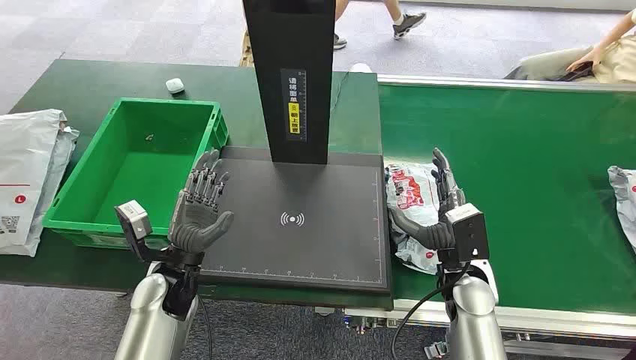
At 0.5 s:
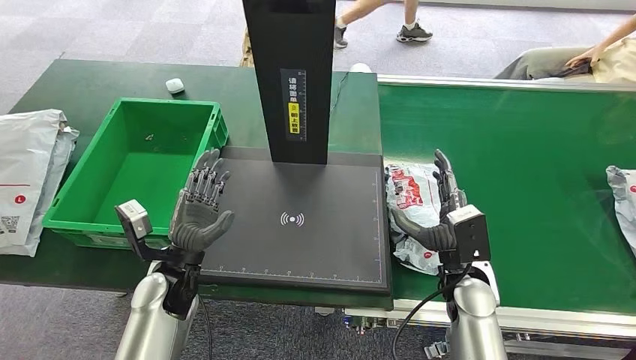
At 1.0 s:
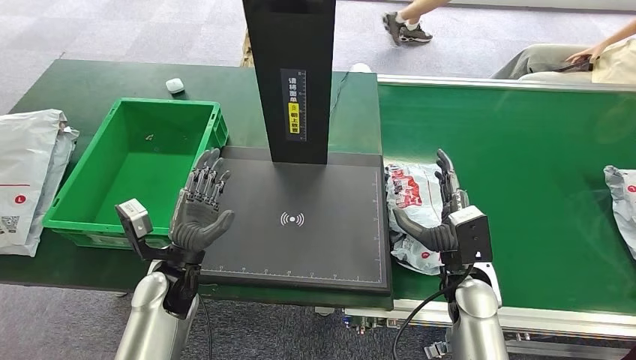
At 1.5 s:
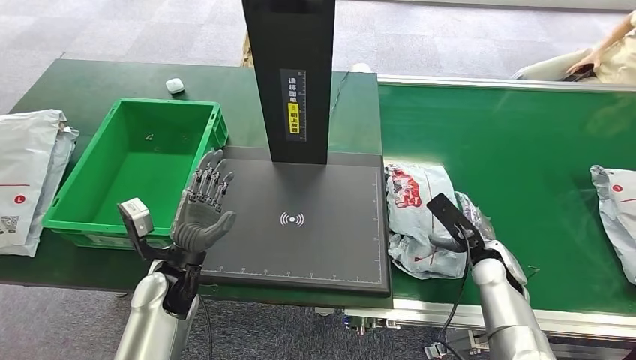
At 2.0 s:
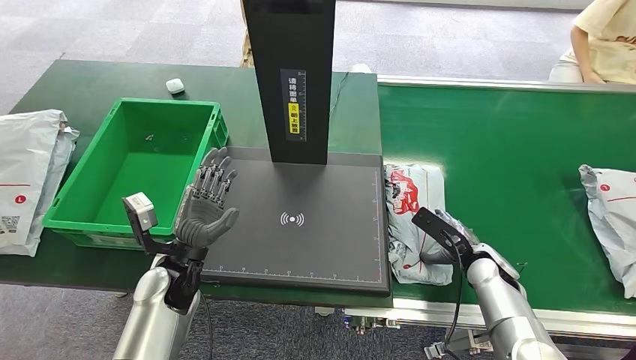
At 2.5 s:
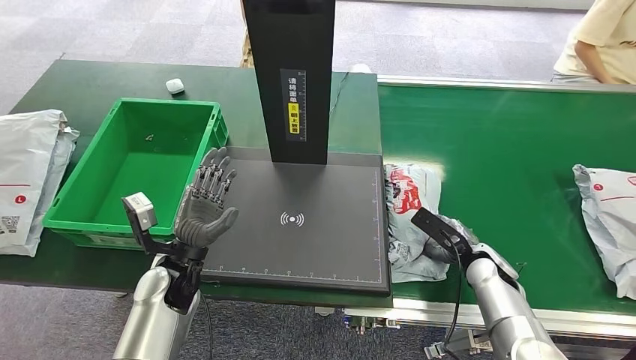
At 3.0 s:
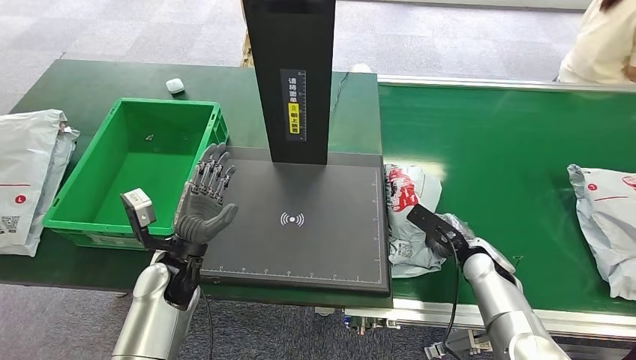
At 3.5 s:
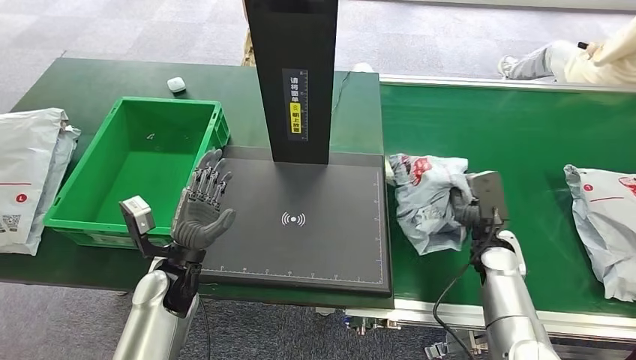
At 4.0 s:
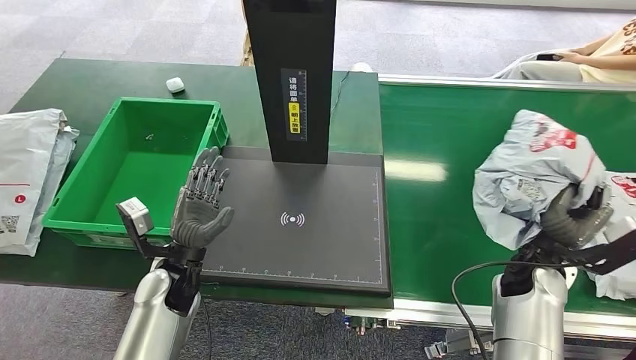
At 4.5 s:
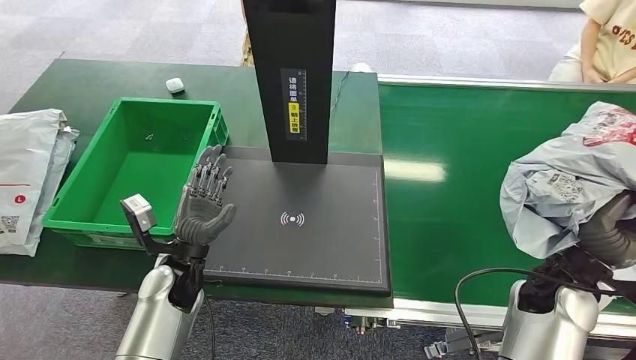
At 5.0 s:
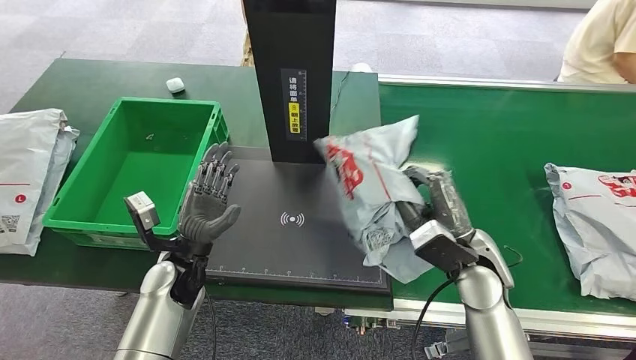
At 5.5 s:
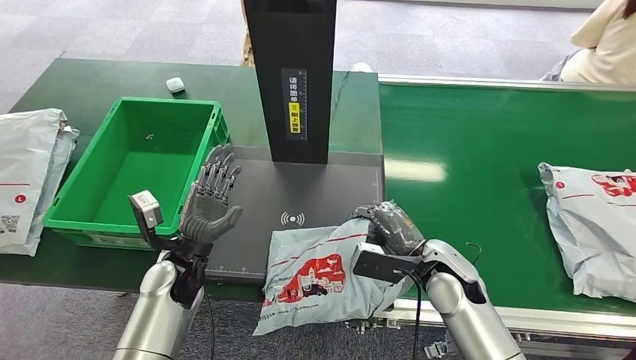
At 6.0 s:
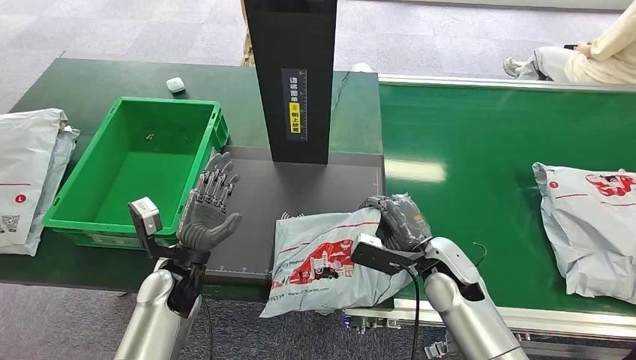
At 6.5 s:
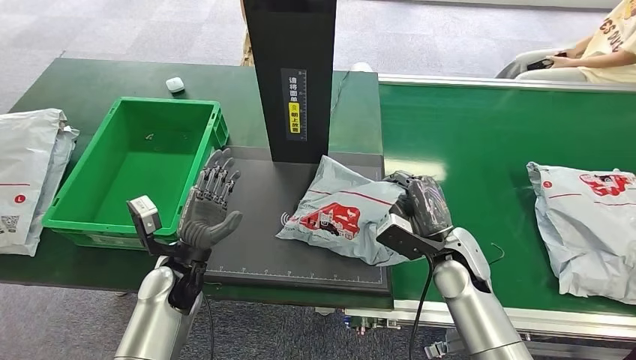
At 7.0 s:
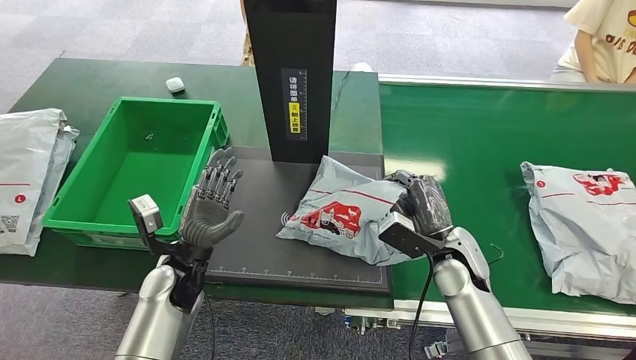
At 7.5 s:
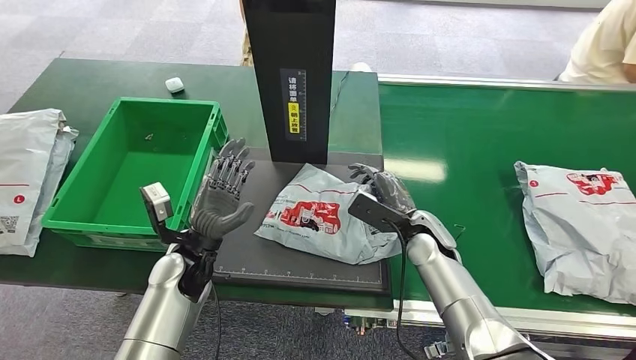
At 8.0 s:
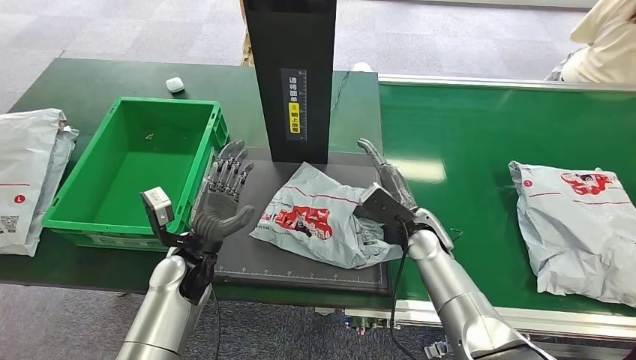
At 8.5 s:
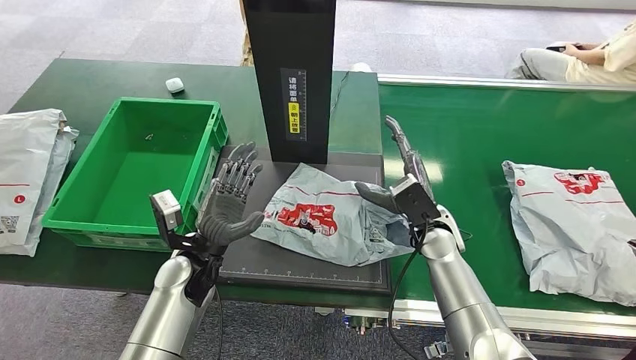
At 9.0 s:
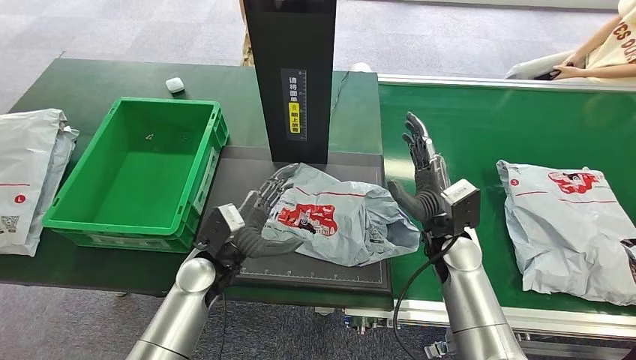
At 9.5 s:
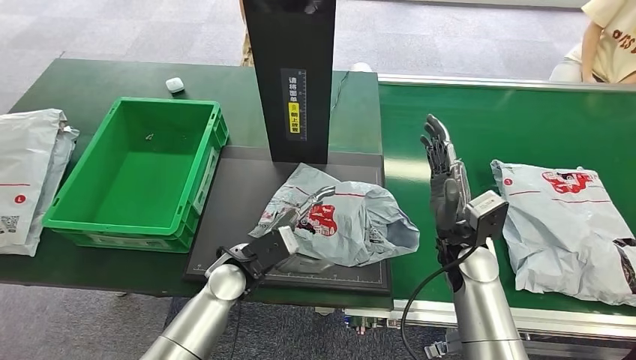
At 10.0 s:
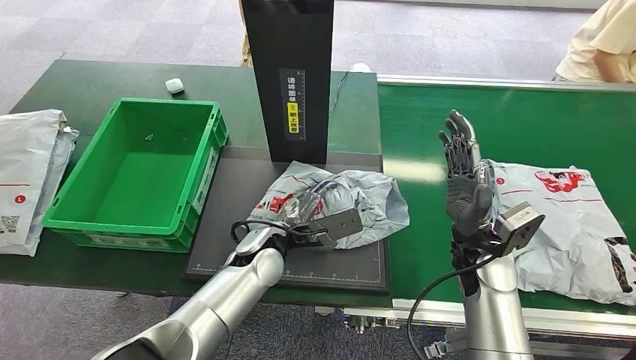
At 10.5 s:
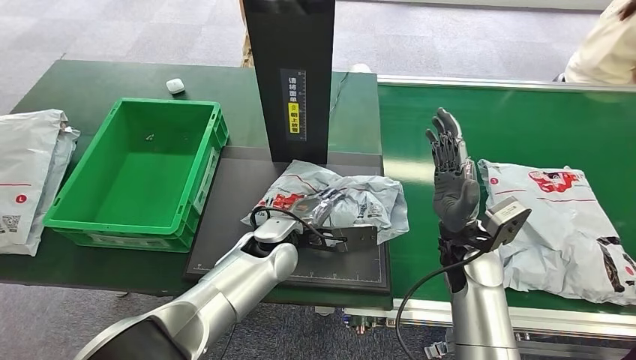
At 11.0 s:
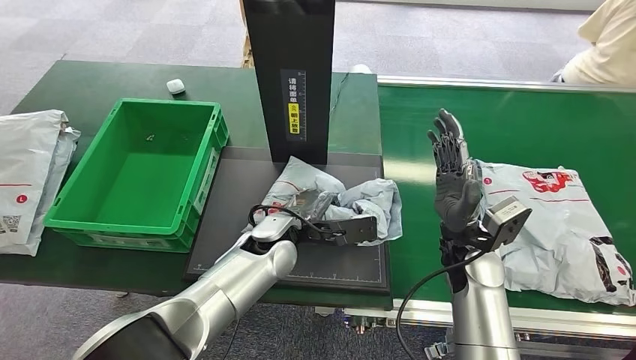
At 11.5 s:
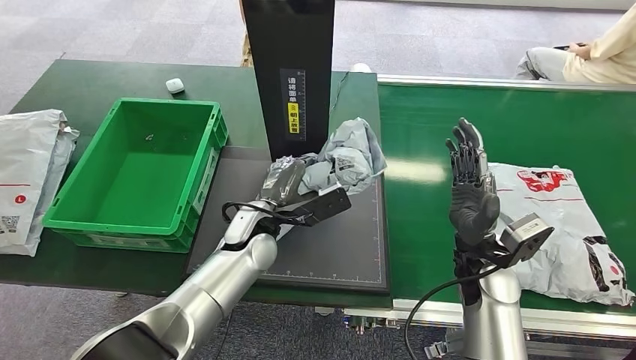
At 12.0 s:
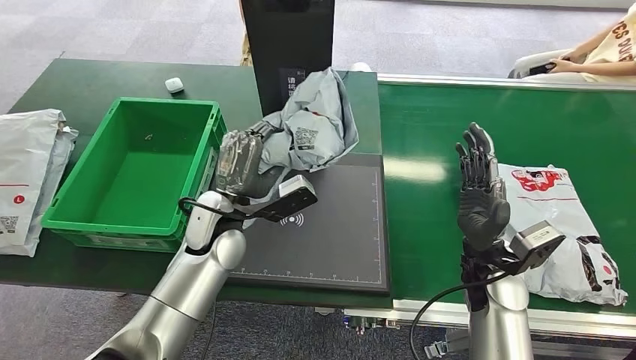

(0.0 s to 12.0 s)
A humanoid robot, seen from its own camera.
Step, 0.0 s - 4.5 s: Pick up the package from the conveyor belt.
Step, 5.0 s - 8.5 s: Place the package onto the inbound machine.
Step, 9.0 s - 11.5 s: Pick up the package from the inbound machine.

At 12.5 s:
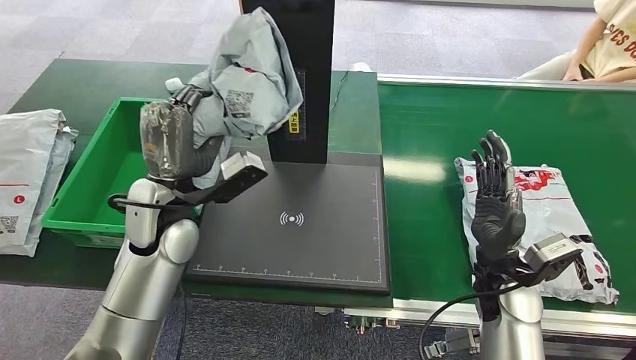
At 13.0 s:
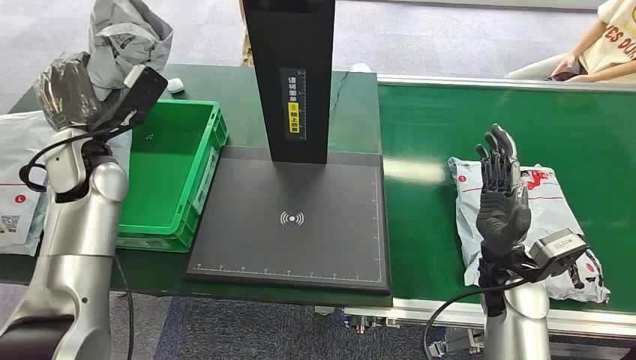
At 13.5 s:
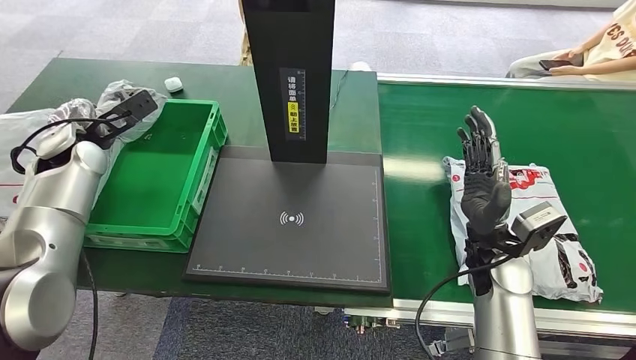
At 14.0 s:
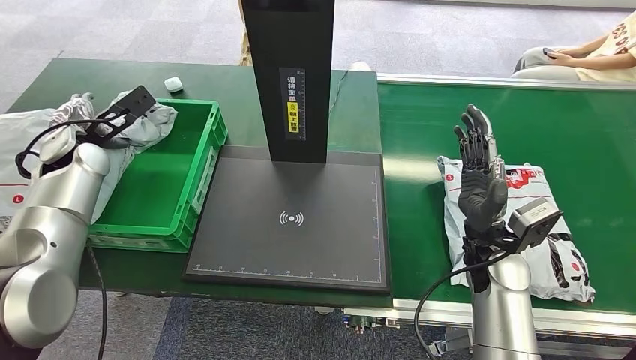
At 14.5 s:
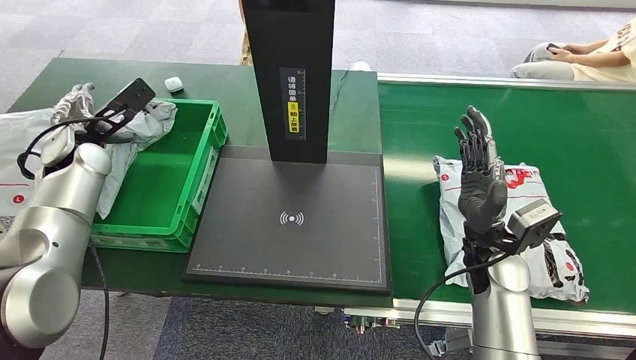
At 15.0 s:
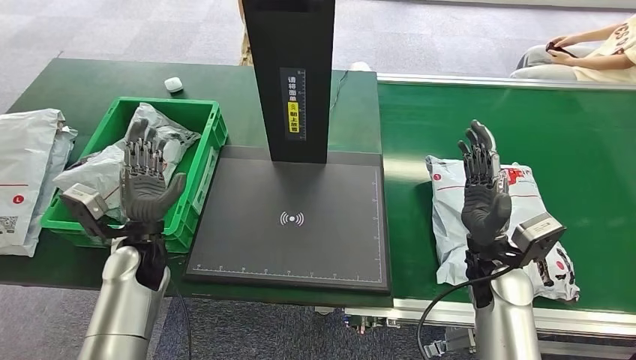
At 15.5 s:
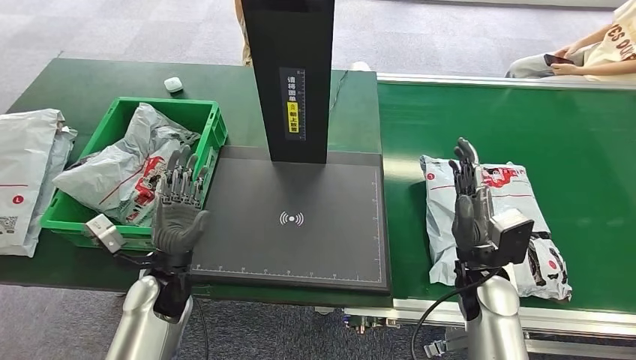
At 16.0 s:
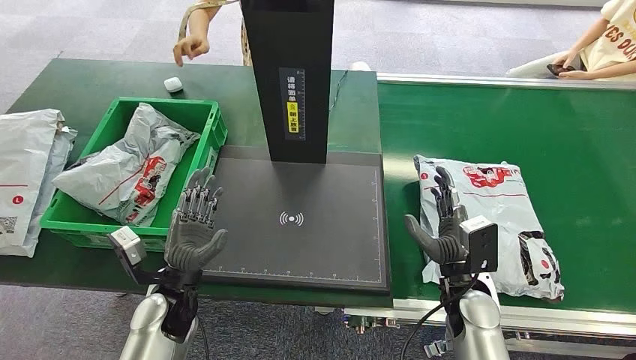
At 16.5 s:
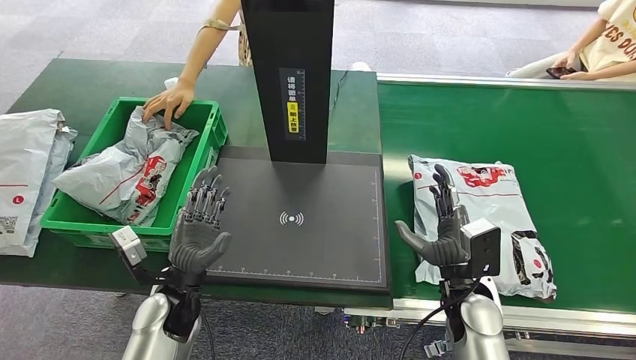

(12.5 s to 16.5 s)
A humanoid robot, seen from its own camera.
Step, 12.5 s - 16.5 s: Place the package into the parcel locker.
